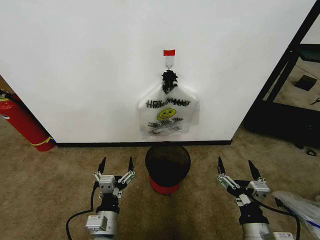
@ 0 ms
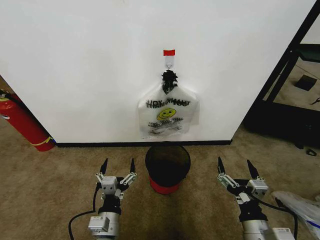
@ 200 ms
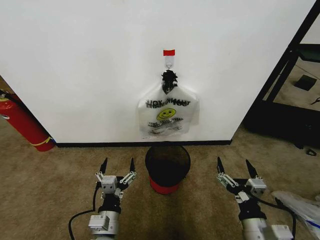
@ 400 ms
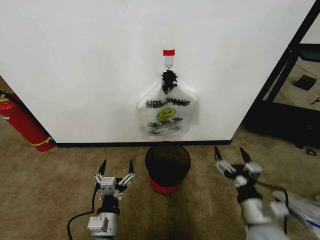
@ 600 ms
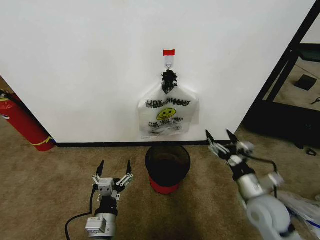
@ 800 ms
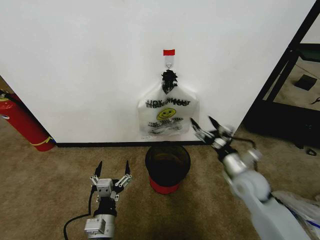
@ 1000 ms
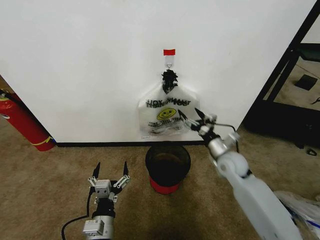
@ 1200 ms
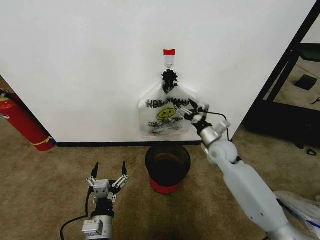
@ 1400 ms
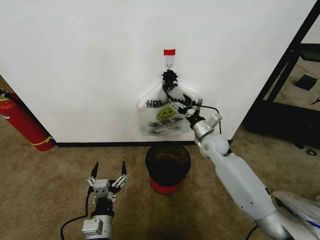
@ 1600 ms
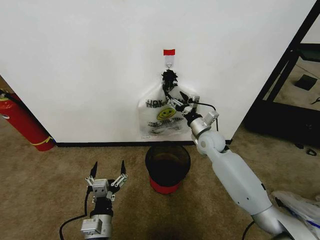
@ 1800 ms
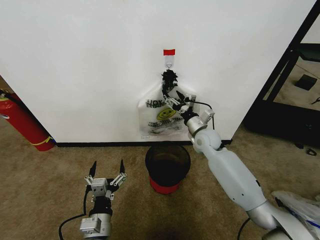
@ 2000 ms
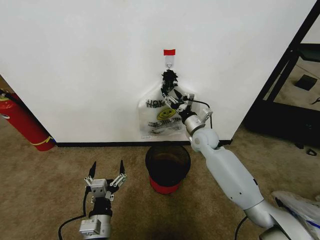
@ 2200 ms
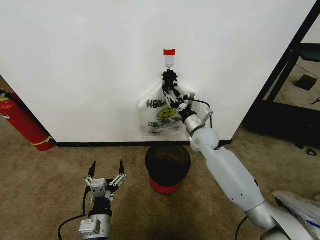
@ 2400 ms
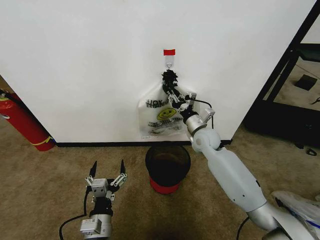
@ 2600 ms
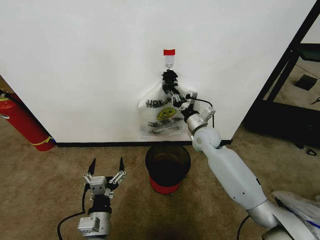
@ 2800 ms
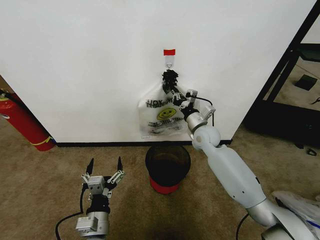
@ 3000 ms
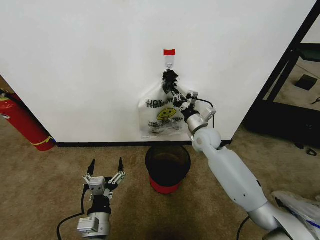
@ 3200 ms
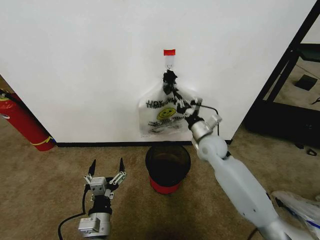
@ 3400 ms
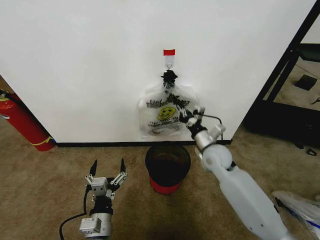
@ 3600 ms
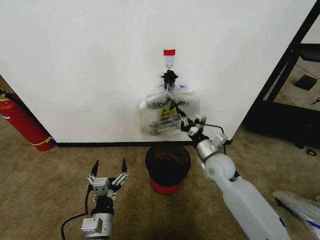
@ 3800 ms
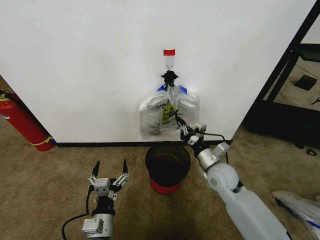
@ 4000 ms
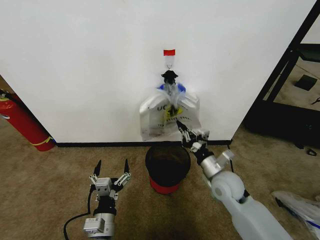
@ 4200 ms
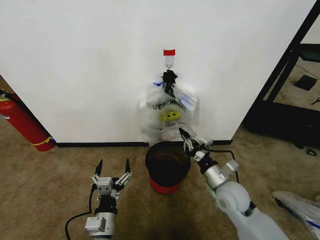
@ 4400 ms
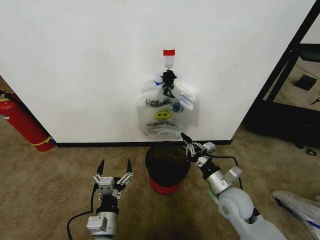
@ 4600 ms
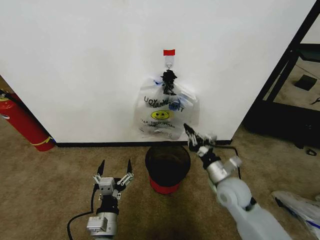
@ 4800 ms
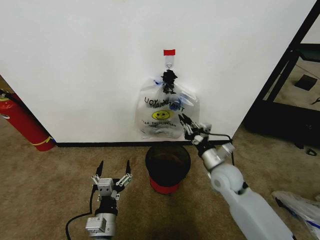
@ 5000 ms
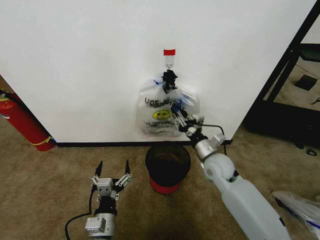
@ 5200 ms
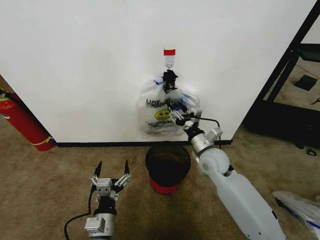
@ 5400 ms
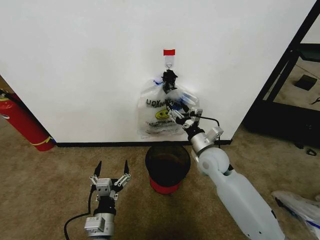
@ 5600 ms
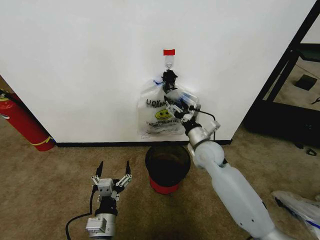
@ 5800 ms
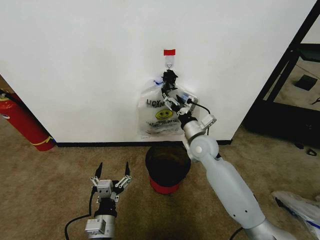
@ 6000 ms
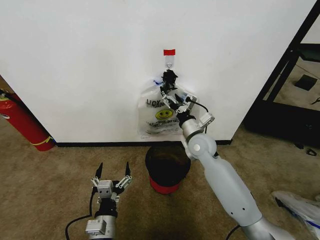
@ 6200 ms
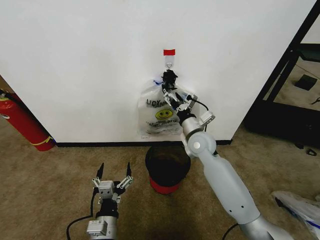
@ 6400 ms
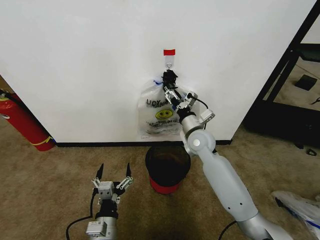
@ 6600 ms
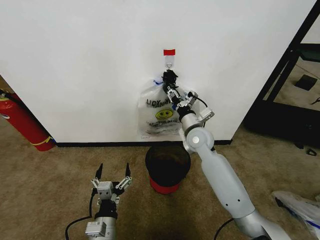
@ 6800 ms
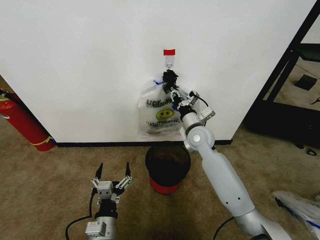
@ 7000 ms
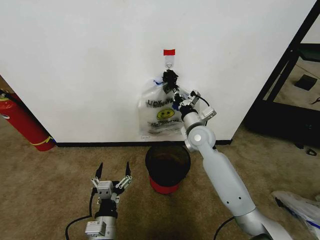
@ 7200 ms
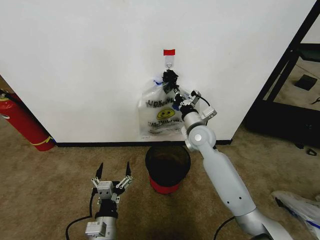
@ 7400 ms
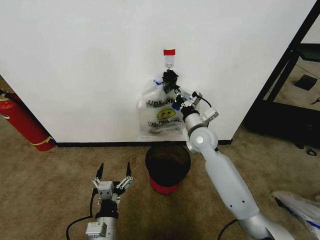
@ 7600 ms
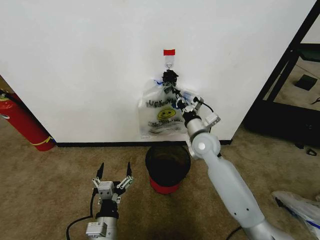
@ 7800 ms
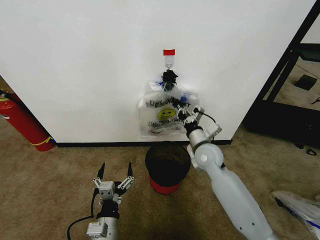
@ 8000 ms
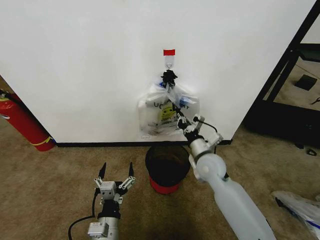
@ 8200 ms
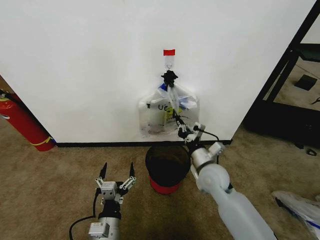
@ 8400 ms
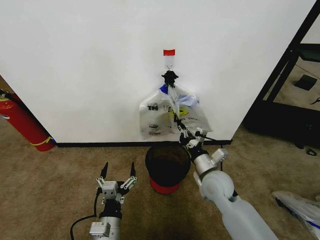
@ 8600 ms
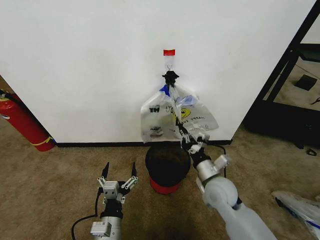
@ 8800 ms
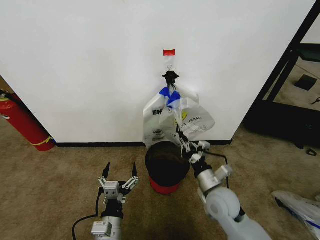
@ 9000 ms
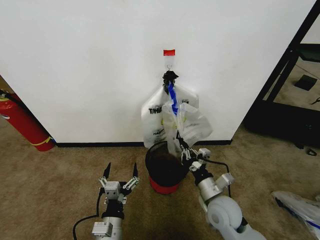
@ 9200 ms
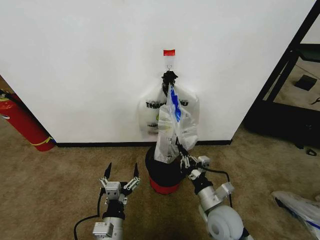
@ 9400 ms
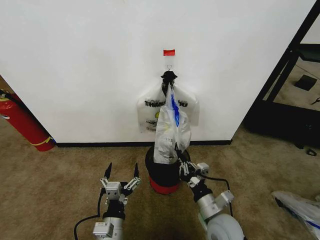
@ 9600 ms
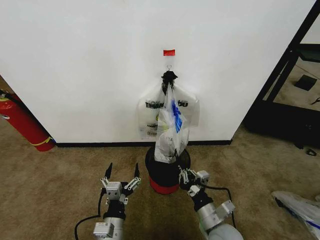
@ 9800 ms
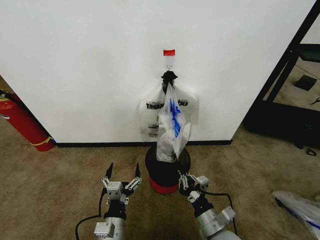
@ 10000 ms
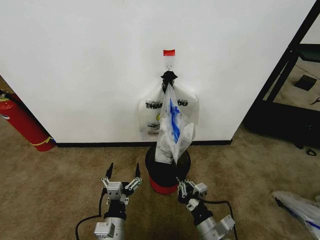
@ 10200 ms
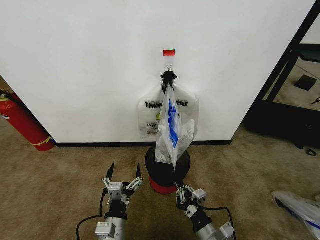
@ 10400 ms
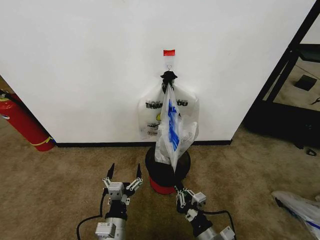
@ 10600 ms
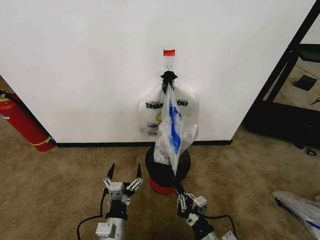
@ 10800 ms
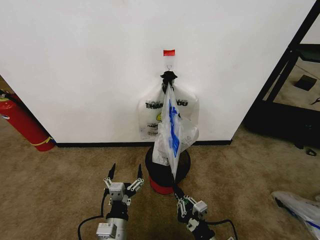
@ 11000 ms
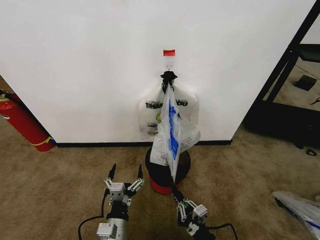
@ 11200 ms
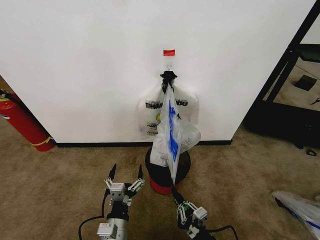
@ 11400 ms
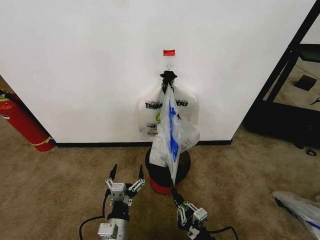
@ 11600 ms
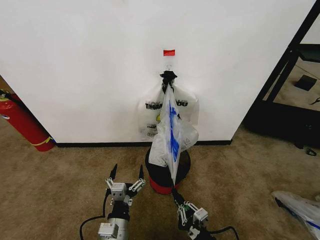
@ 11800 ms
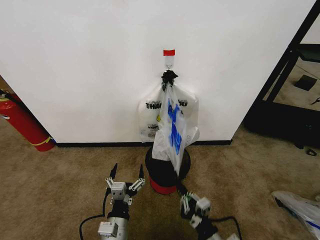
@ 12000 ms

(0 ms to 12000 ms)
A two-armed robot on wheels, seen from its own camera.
Task of the whole recording: Pick up the garbage bag from the wall and place it over the trash bin.
1600 ms - 3000 ms: The right gripper closes its fingers.
3000 ms - 4400 ms: The right gripper is displaced backward by roughly 20 cm.
4400 ms - 6000 ms: The right gripper goes approximately 15 cm forward, to the left and upward, and opens up.
6000 ms - 7600 ms: The right gripper closes its fingers.
7600 ms - 9000 ms: The right gripper heads backward and downward, covering roughly 20 cm.
9000 ms - 10400 ms: The right gripper moves backward and downward, roughly 15 cm.
10400 ms - 12000 ms: There are only small adjustments of the grippers.

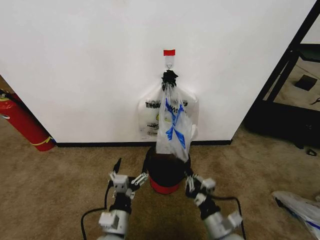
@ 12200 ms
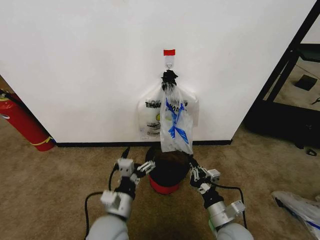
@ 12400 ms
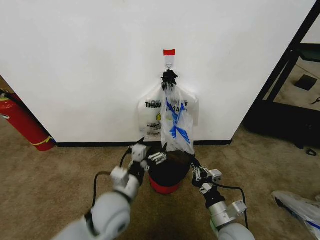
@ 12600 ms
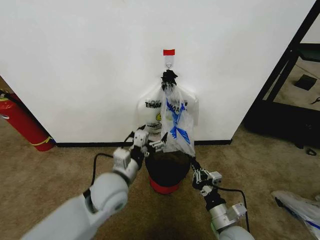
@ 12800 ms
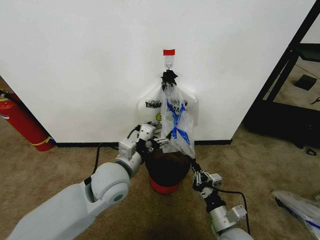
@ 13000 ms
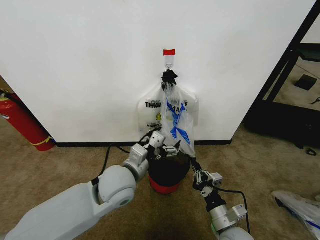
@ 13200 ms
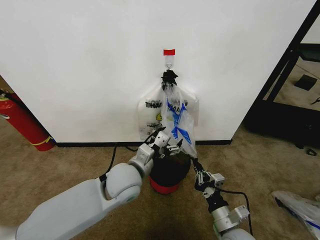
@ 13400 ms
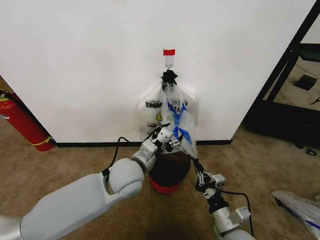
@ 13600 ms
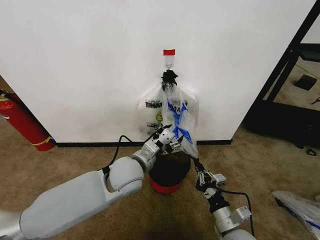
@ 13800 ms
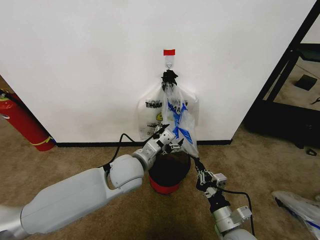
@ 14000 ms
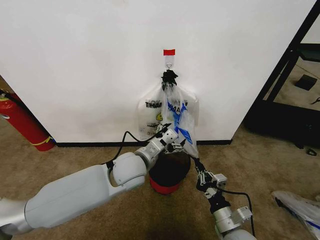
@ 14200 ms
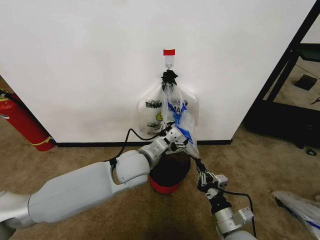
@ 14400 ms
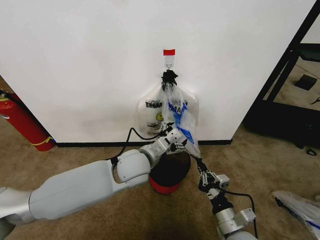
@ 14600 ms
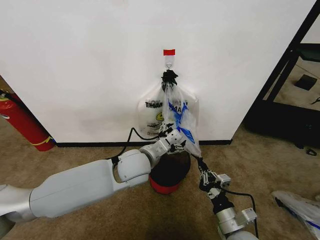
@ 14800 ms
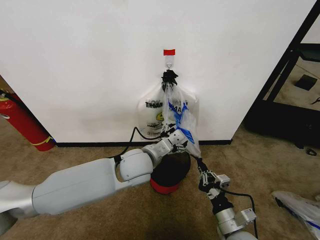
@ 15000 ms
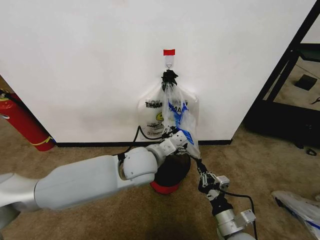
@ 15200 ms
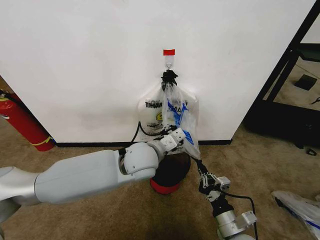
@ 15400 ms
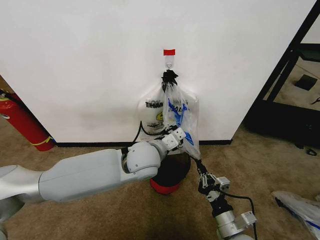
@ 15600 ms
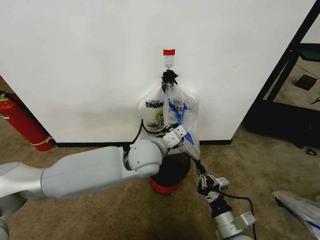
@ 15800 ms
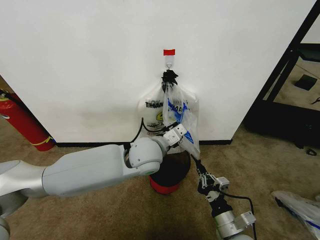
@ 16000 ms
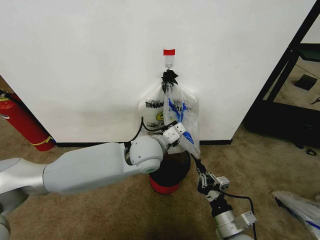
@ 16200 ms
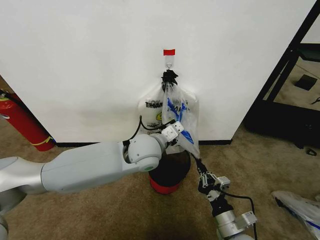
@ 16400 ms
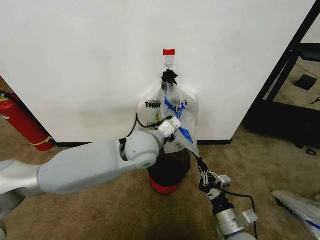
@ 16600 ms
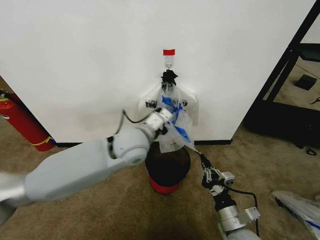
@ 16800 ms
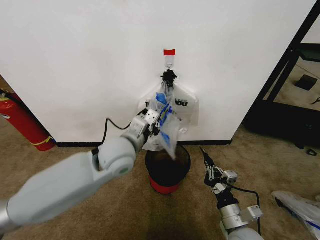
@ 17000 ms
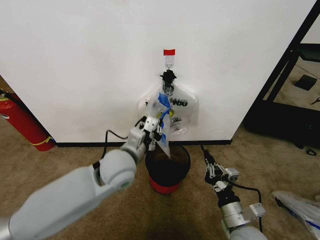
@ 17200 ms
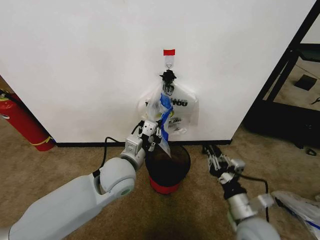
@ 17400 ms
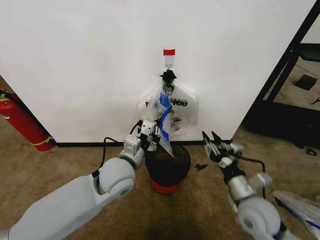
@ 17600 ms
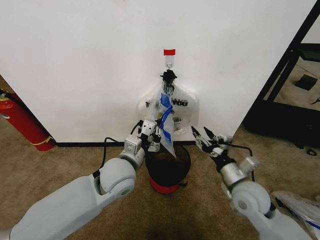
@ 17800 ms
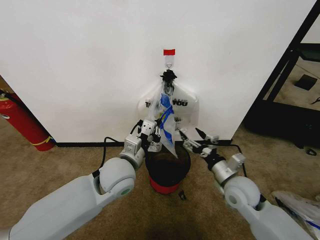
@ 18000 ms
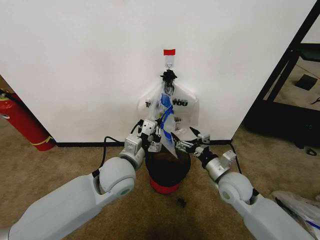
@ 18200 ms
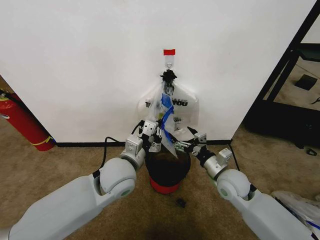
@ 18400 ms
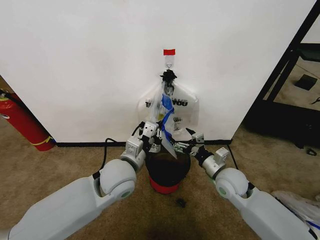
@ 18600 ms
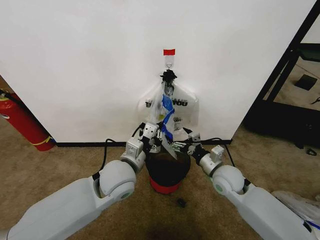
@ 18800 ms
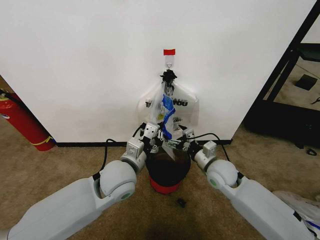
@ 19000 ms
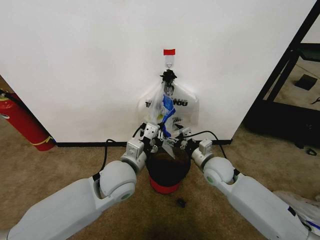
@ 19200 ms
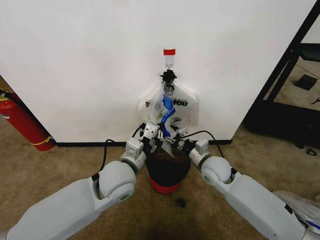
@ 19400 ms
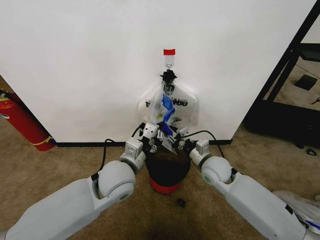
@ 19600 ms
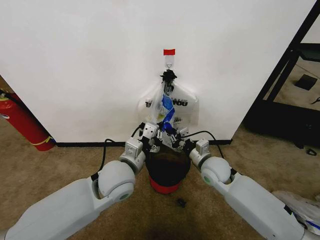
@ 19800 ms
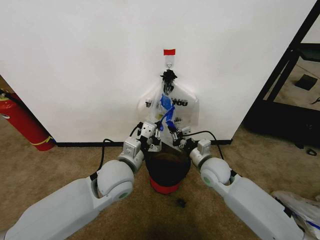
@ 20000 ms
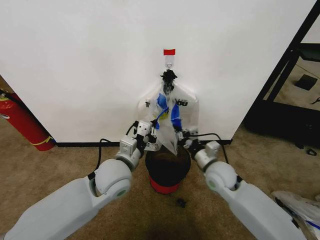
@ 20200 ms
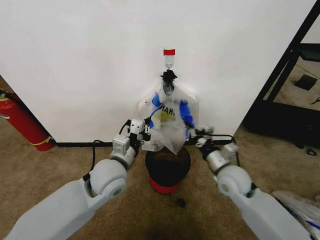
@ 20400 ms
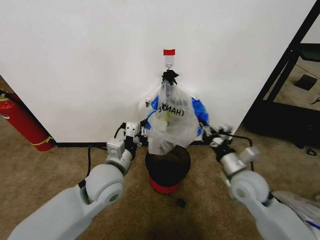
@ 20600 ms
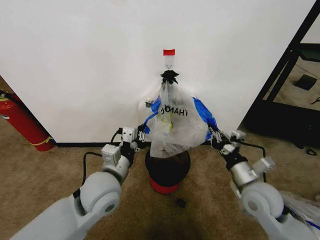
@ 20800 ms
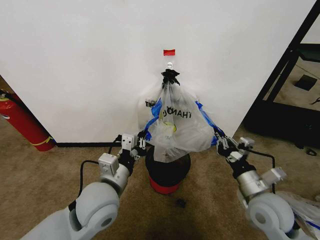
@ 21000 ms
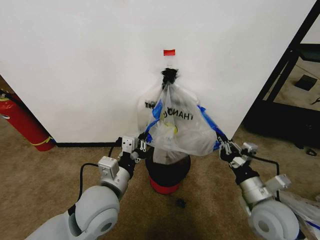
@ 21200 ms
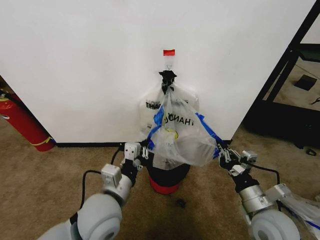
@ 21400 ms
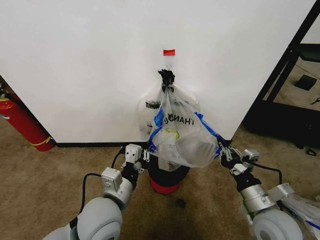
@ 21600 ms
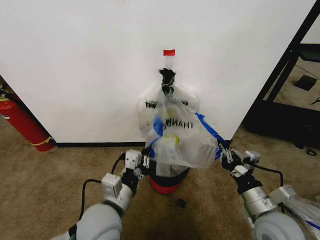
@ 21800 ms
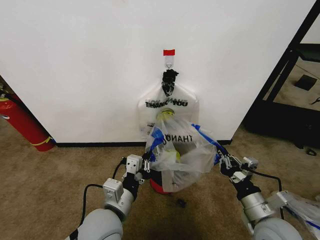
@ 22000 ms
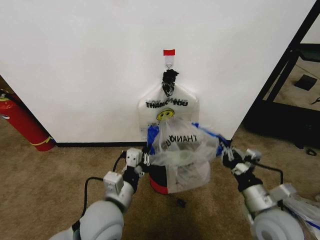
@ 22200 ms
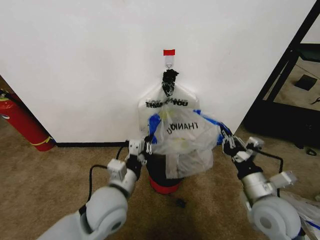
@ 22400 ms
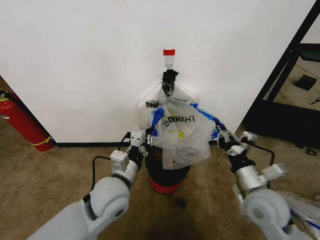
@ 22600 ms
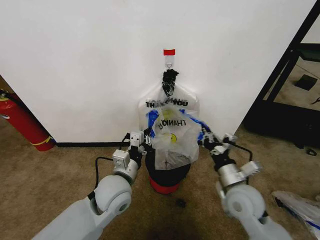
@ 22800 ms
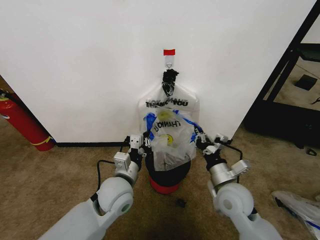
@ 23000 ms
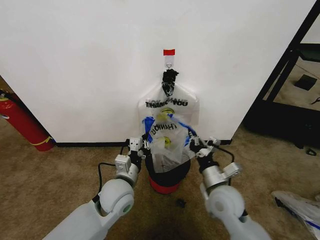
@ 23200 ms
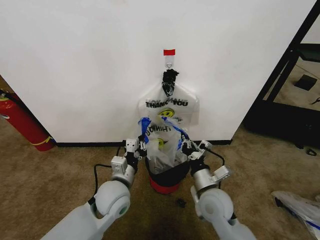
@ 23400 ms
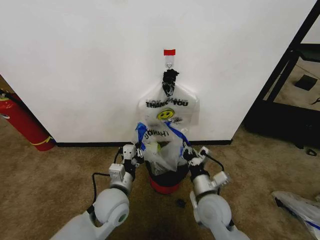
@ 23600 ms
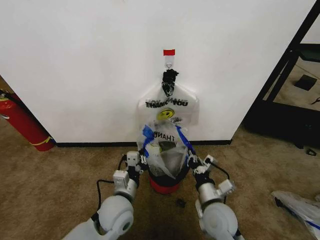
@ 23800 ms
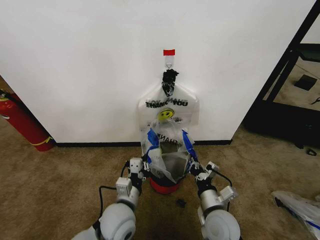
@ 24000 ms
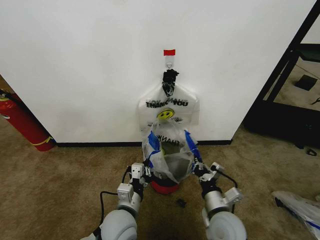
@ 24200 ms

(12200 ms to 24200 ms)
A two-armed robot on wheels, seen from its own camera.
Task of the whole recording: Pick up the garbage bag from the wall and place it over the trash bin.
12200 ms - 13800 ms: The left gripper moves forward and upward, approximately 20 cm.
13800 ms - 15200 ms: The left gripper changes place by about 5 cm.
15200 ms - 16600 ms: The left gripper closes its fingers.
16600 ms - 18200 ms: The right gripper is displaced forward and upward by about 15 cm, and opens up; the left gripper travels to the left and backward by roughly 10 cm.
18200 ms - 19800 ms: The right gripper goes about 5 cm forward, and closes up.
19800 ms - 21200 ms: The left gripper goes roughly 5 cm backward. The right gripper travels backward and to the right by about 20 cm.
21200 ms - 22600 ms: The grippers move only a little.
22600 ms - 24200 ms: The left gripper moves downward and backward, approximately 10 cm, while the right gripper moves downward and to the left, approximately 10 cm.
